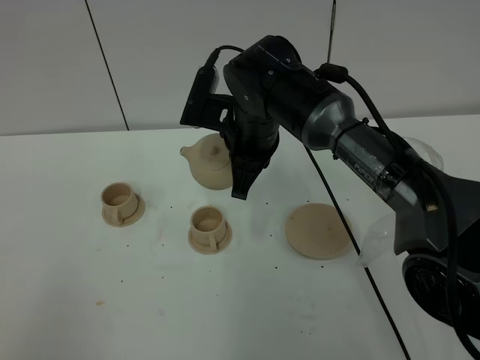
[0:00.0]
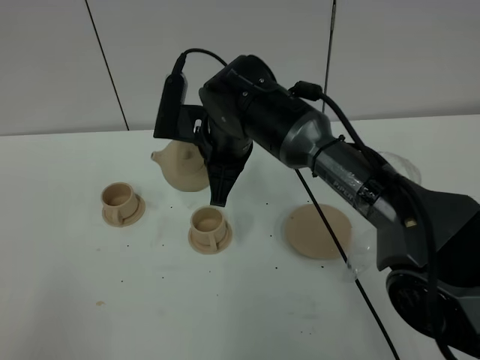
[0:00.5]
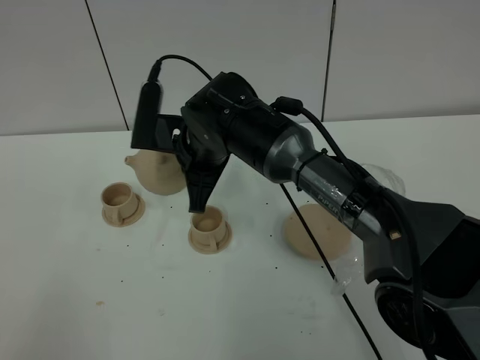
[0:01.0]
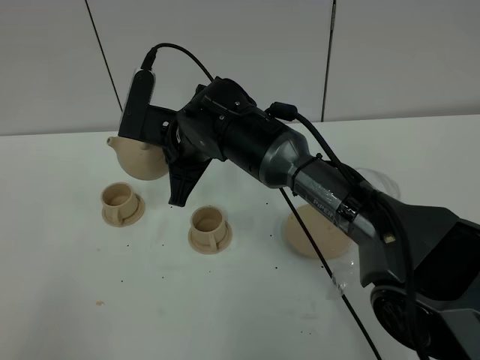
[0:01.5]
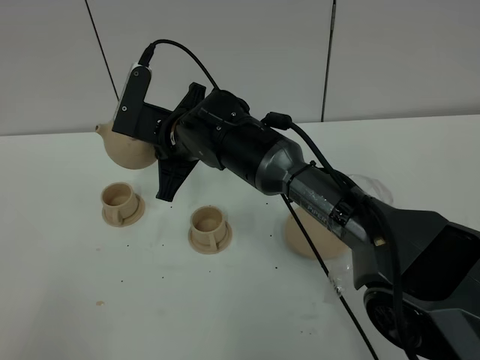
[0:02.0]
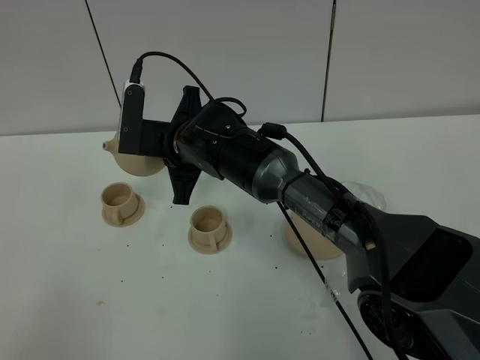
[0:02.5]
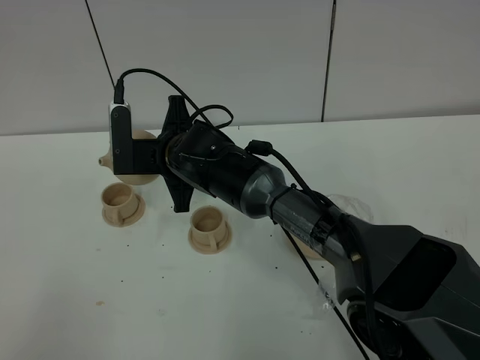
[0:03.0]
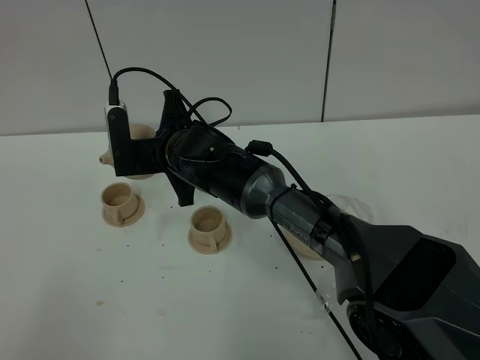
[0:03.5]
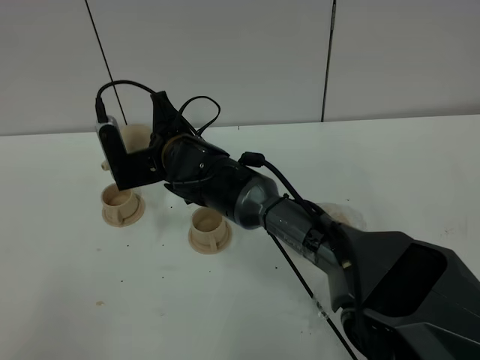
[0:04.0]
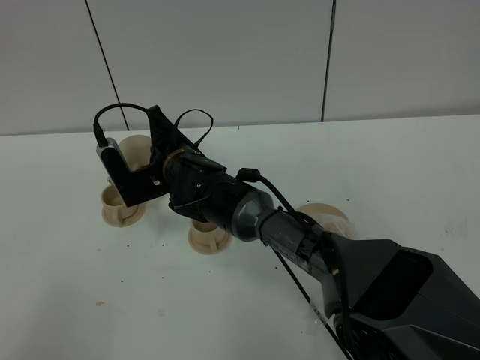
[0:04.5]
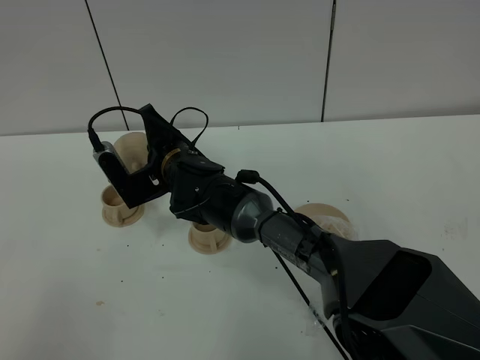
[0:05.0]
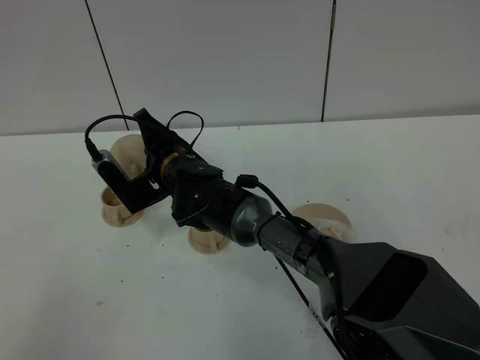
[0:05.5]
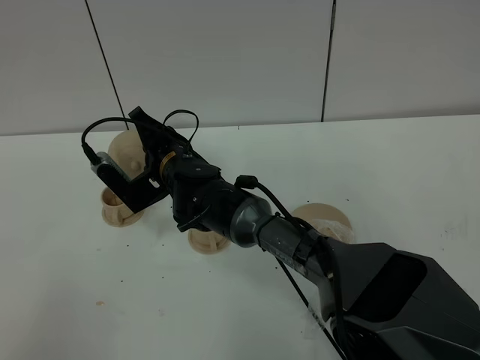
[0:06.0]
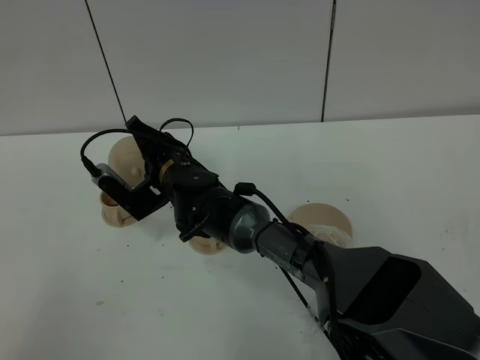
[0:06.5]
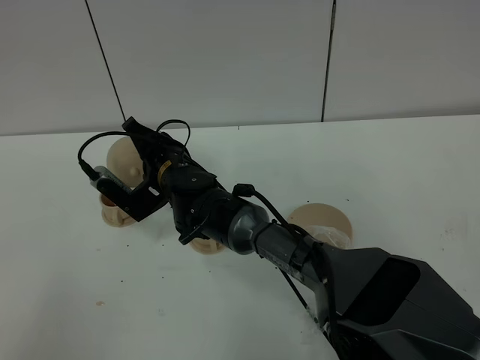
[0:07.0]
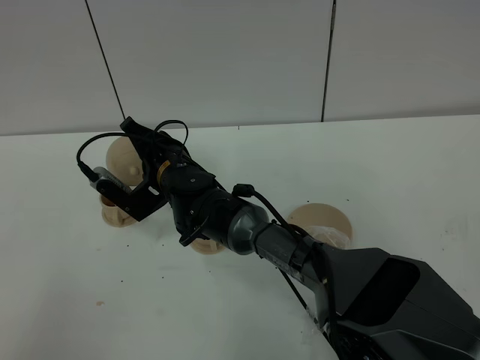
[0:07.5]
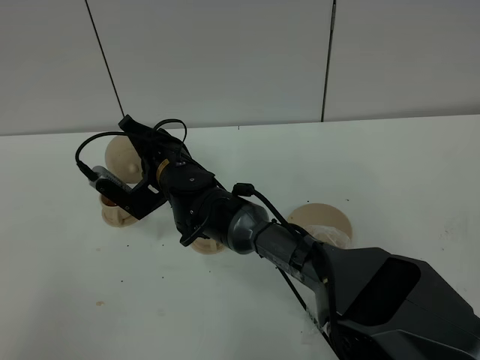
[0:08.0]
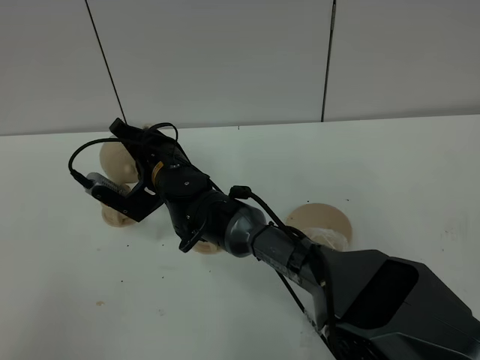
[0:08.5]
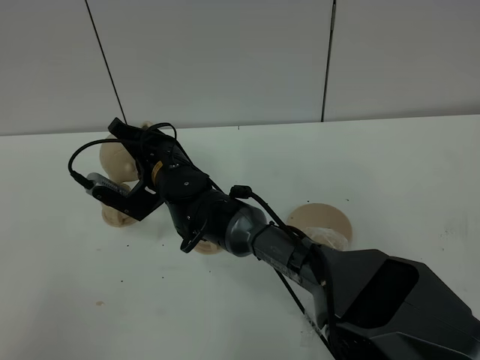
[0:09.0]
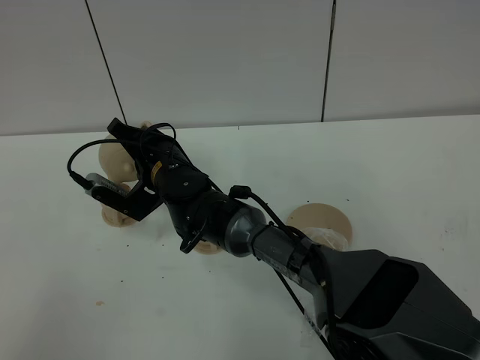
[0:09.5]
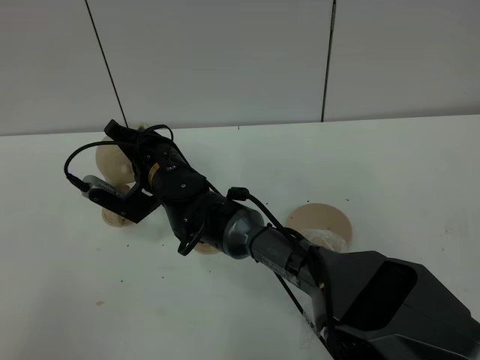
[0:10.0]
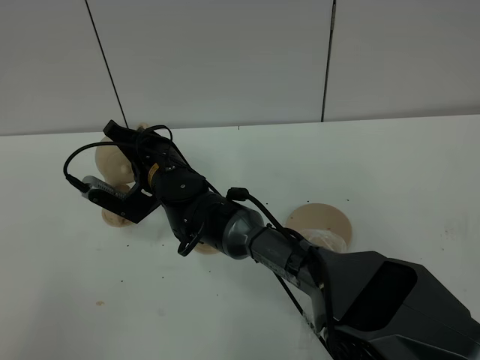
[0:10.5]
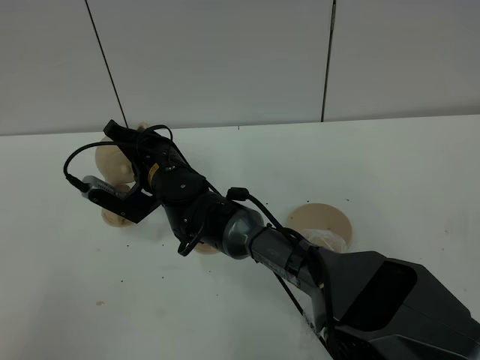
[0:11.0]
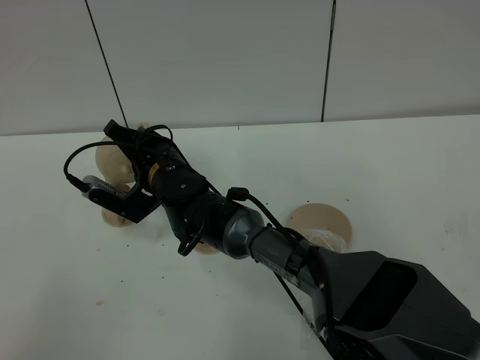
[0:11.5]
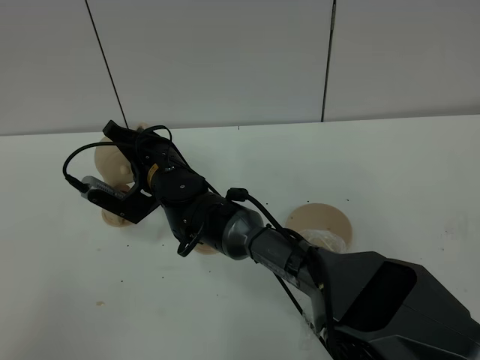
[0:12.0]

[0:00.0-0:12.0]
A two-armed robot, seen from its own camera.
Task of the whole recording: grasp the brown teapot and pour the tea into the two brown teacups one by one, put the brown teapot back in its original place.
0:00.0 to 0:02.0: The right gripper travels to the left by roughly 10 cm.
0:06.0 to 0:10.0: The grippers move only a little.
0:10.0 to 0:12.0: Both grippers stay about where they are.

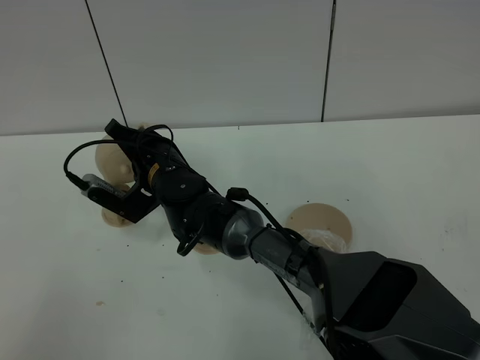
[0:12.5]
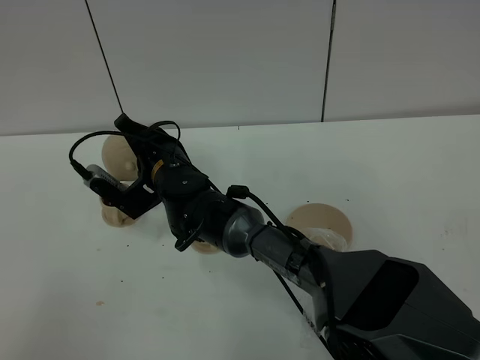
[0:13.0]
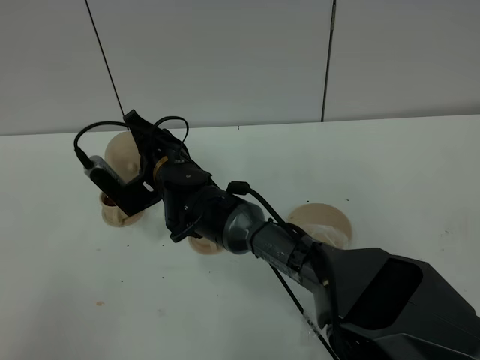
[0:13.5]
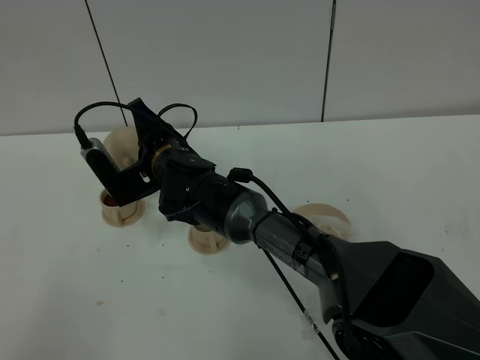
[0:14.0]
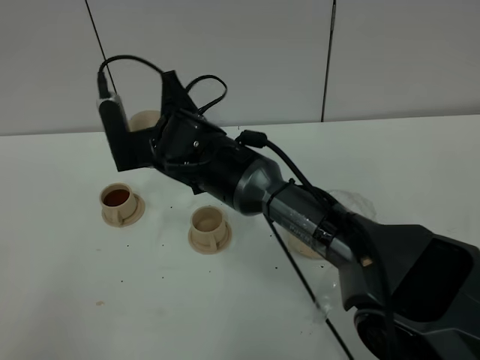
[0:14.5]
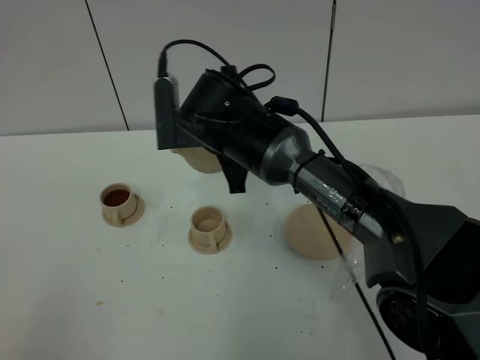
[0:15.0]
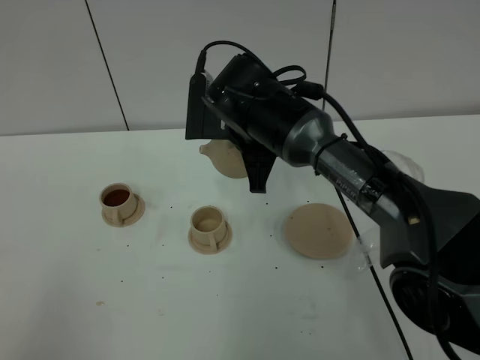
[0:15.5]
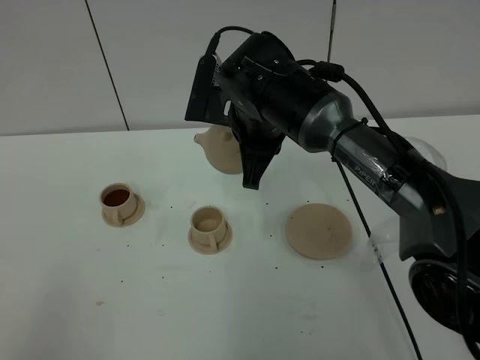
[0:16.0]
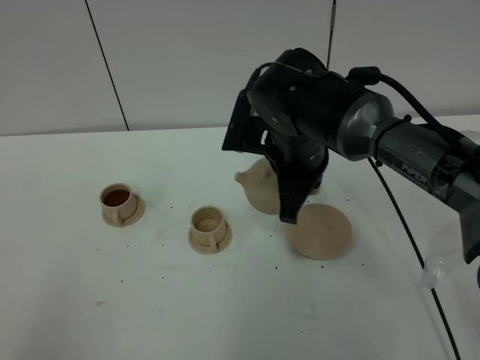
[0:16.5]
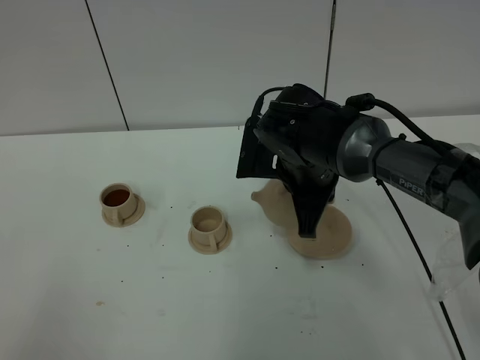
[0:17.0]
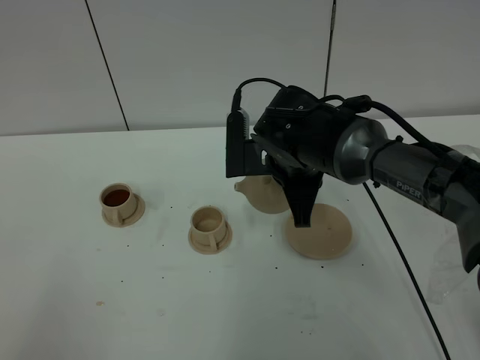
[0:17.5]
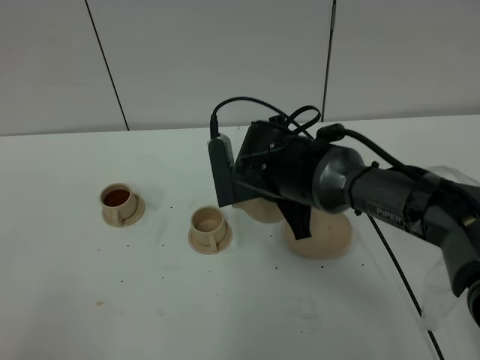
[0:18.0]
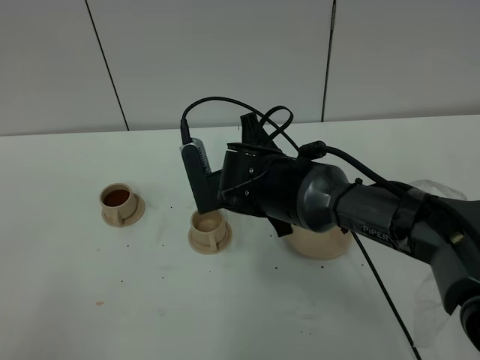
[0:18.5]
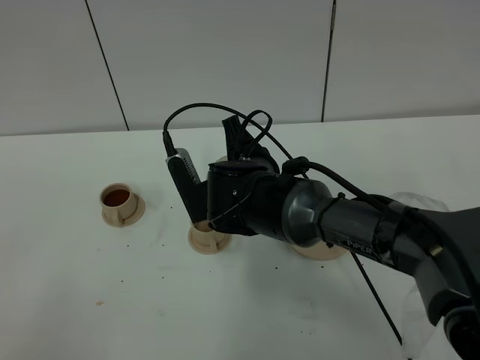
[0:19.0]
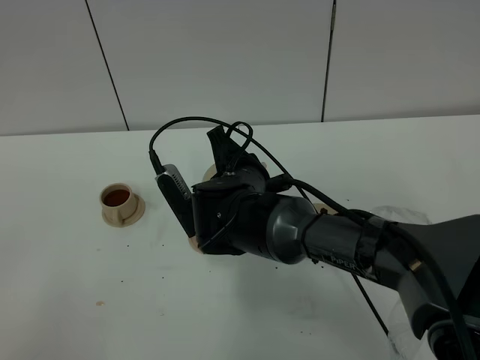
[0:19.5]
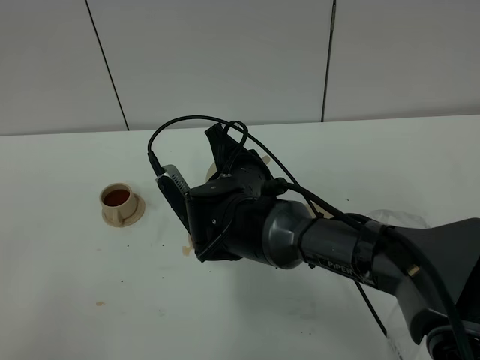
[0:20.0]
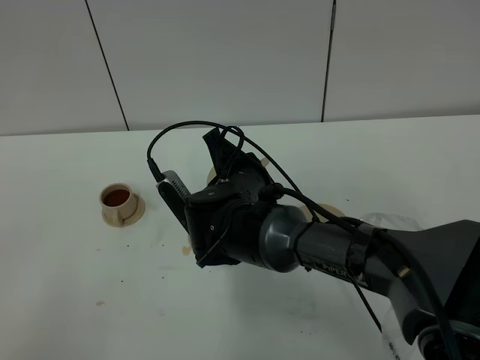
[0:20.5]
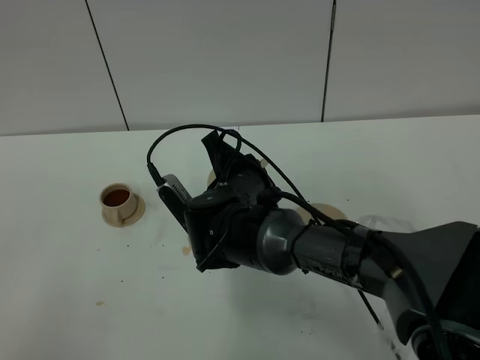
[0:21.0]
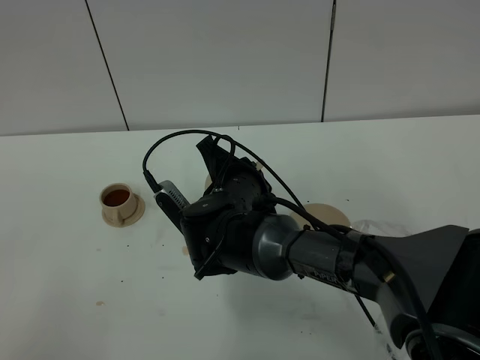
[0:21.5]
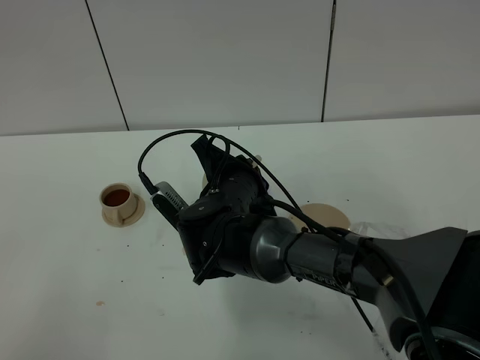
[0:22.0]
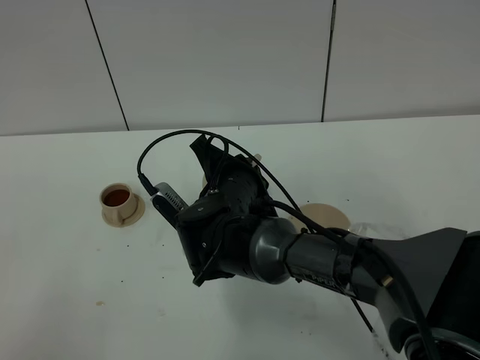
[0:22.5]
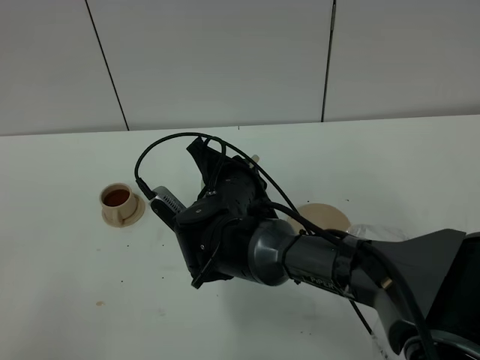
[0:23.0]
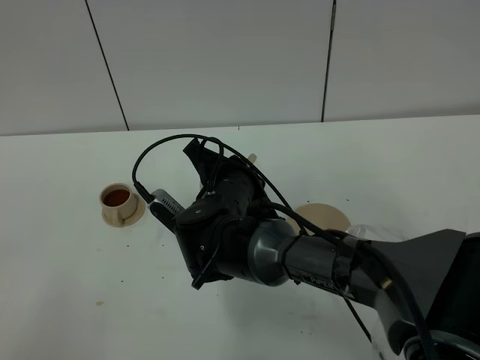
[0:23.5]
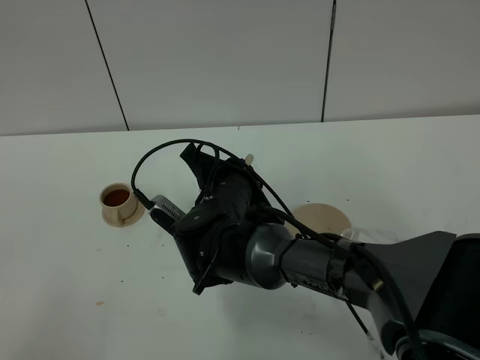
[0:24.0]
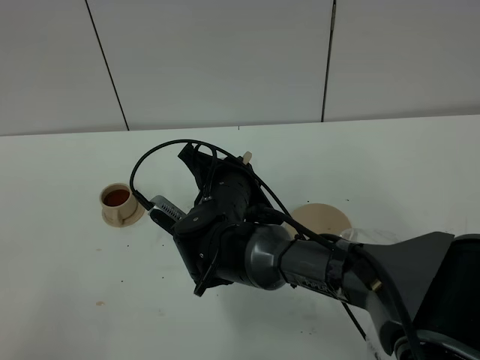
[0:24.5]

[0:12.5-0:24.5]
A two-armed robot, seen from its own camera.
Task of the whole recording: grasp the brown teapot and pour the tea into the two brown teacups one by one, put the brown teapot back in its original place.
0:12.5 to 0:14.5: The right gripper travels upward by some 10 cm.
0:14.5 to 0:16.5: The right gripper goes some 15 cm to the right.
0:16.5 to 0:18.5: The right gripper changes place by approximately 5 cm.
0:20.5 to 0:24.5: The grippers make only small movements.

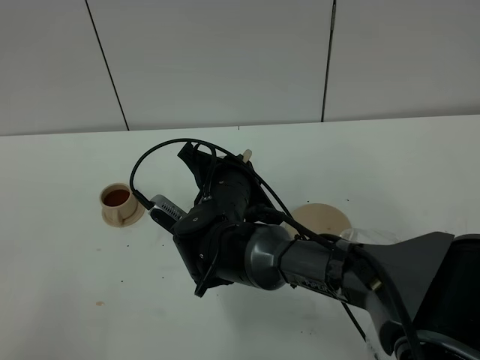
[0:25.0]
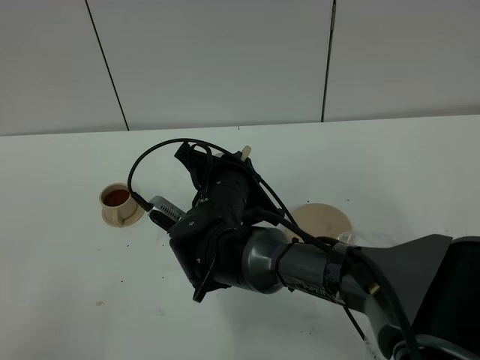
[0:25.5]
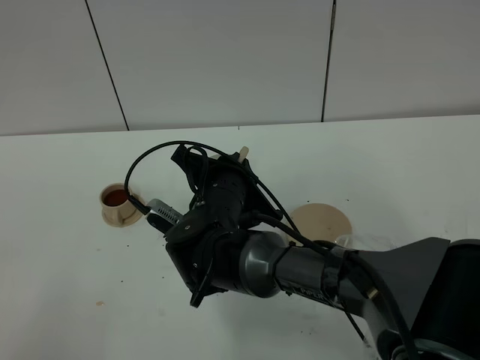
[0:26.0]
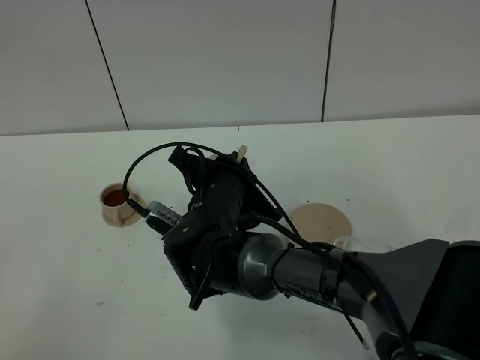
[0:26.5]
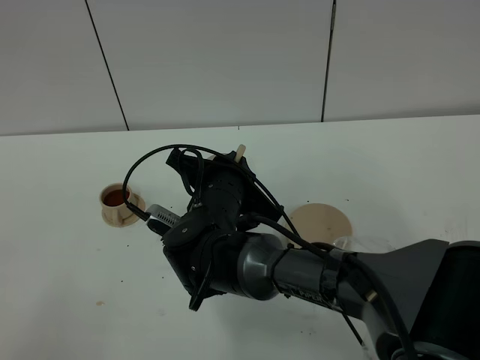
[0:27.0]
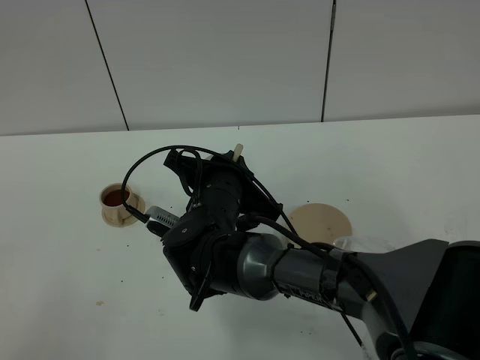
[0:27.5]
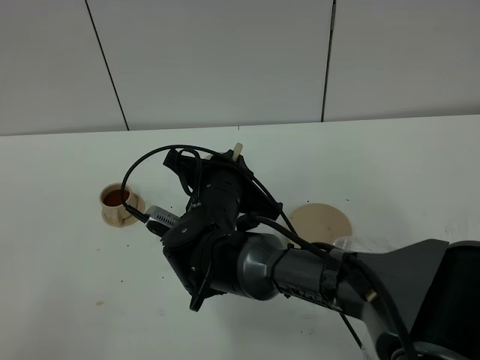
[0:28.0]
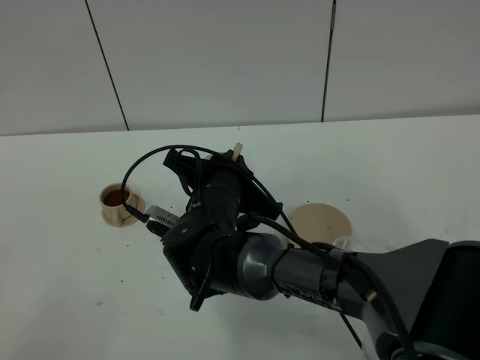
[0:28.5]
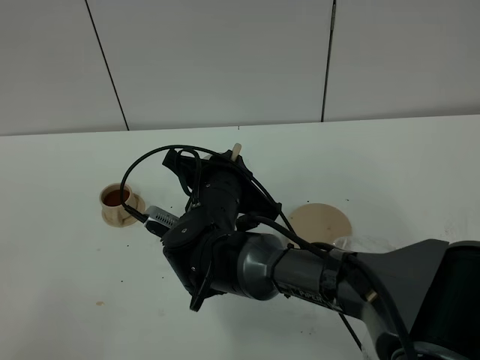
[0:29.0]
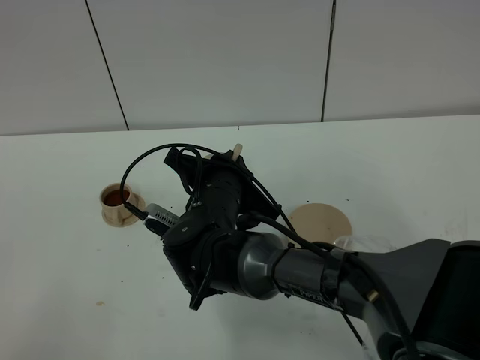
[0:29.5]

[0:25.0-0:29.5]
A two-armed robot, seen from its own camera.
Task of the whole recording: grasp the brown teapot and pour the tea into the two brown teacups one by one, put the brown teapot back in its original place.
0:25.0 to 0:27.0: The grippers move only a little.
0:27.0 to 0:29.5: Both grippers stay about where they are.
